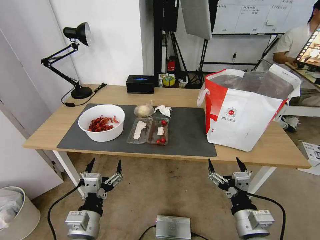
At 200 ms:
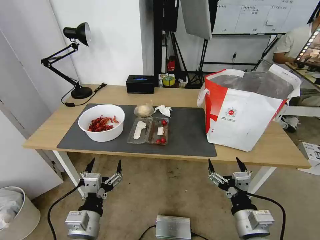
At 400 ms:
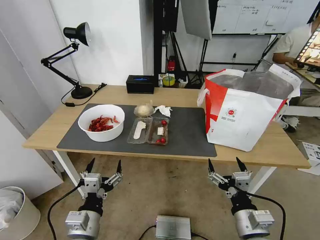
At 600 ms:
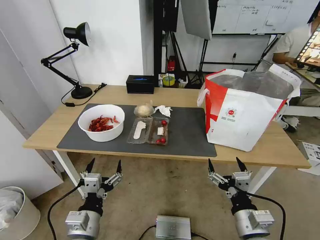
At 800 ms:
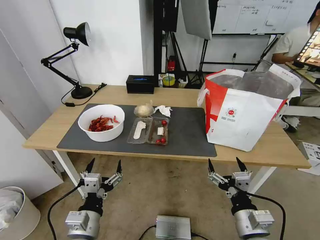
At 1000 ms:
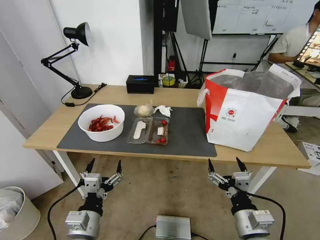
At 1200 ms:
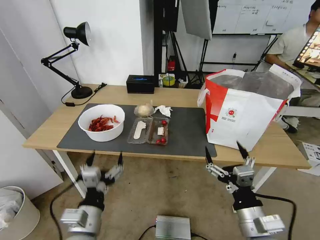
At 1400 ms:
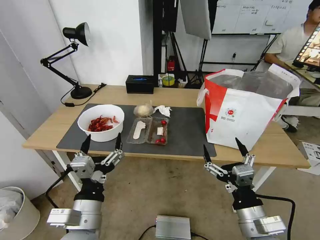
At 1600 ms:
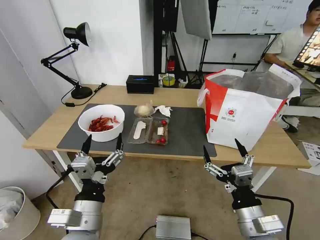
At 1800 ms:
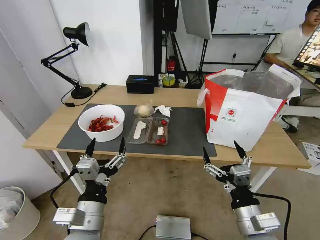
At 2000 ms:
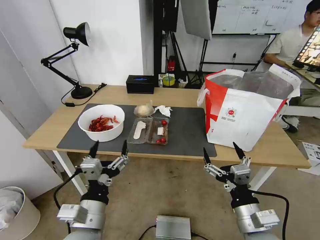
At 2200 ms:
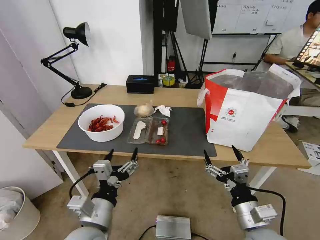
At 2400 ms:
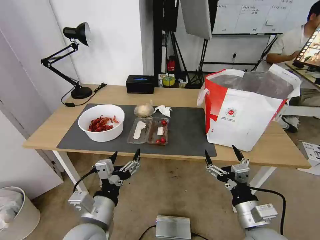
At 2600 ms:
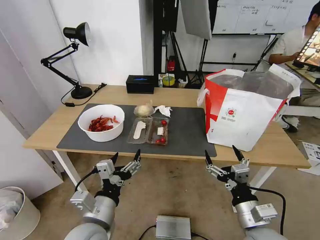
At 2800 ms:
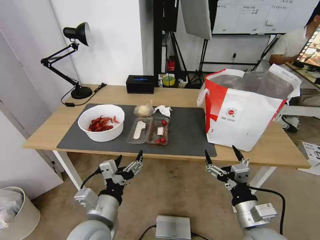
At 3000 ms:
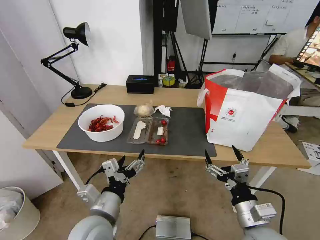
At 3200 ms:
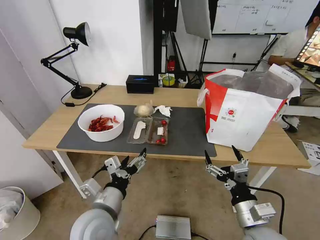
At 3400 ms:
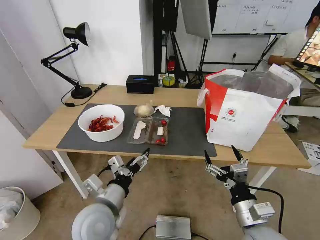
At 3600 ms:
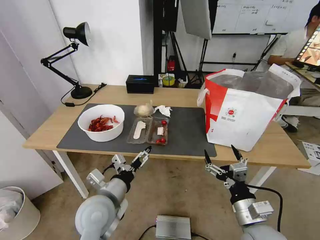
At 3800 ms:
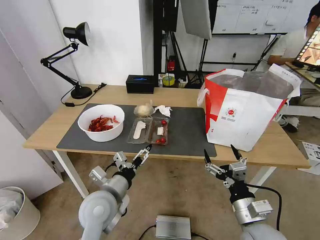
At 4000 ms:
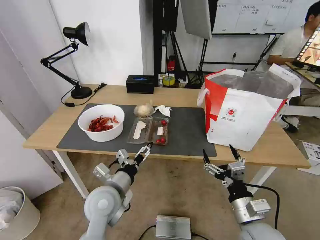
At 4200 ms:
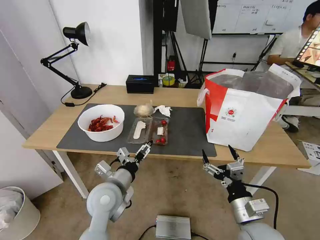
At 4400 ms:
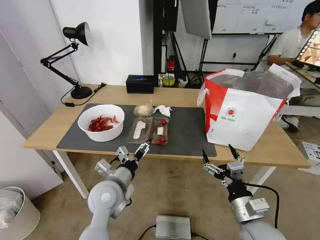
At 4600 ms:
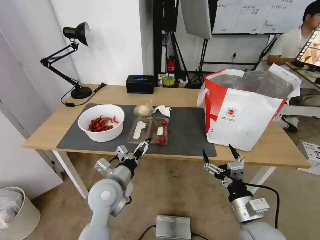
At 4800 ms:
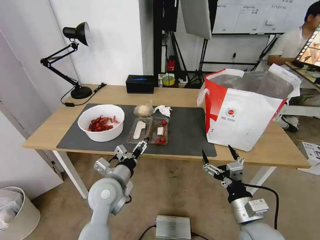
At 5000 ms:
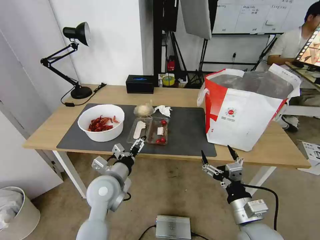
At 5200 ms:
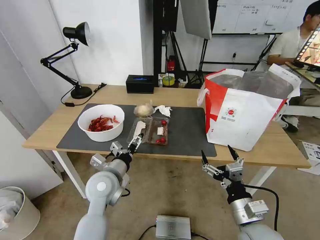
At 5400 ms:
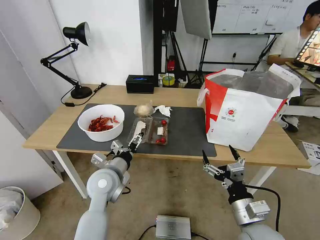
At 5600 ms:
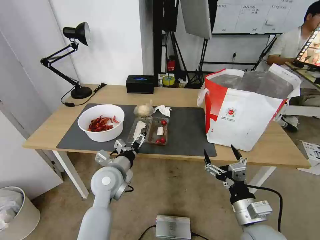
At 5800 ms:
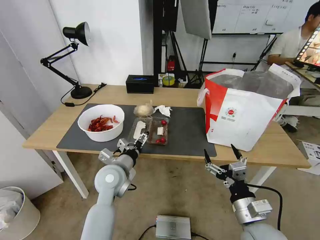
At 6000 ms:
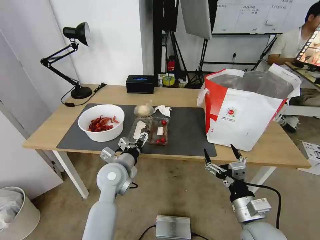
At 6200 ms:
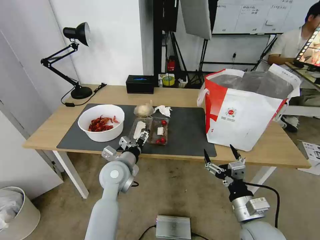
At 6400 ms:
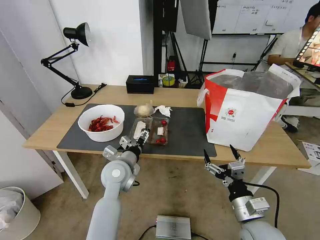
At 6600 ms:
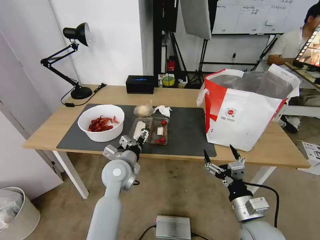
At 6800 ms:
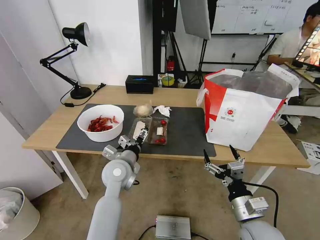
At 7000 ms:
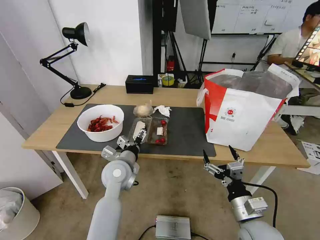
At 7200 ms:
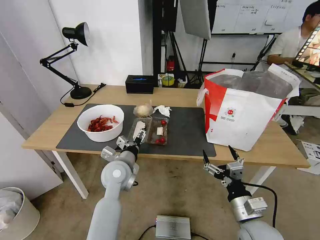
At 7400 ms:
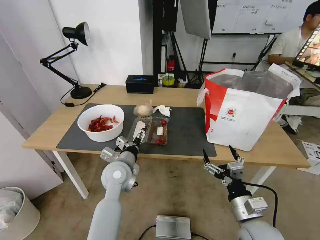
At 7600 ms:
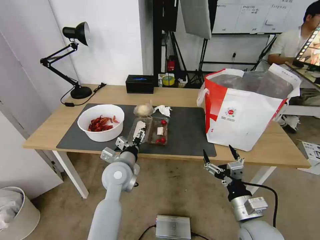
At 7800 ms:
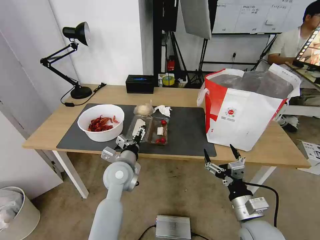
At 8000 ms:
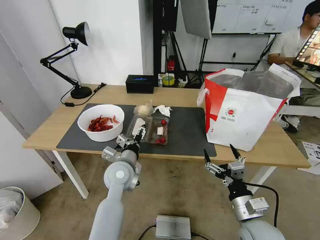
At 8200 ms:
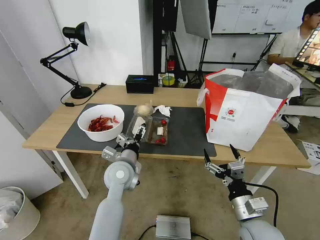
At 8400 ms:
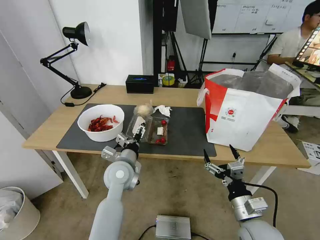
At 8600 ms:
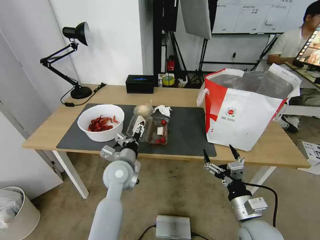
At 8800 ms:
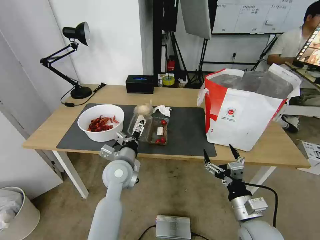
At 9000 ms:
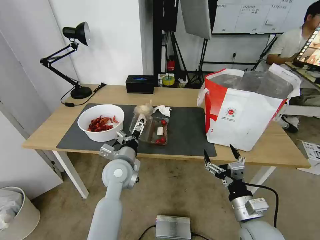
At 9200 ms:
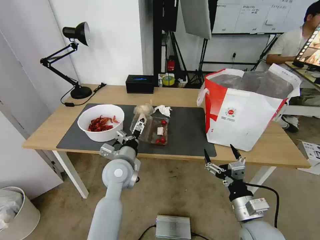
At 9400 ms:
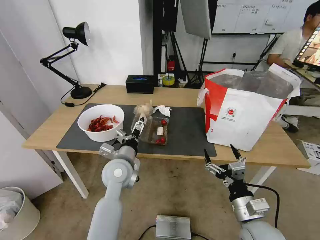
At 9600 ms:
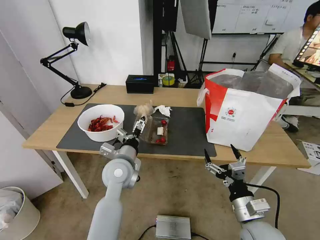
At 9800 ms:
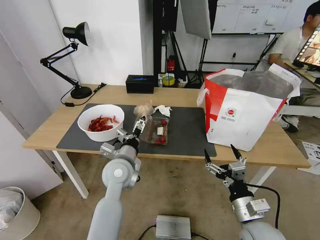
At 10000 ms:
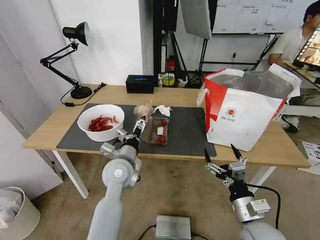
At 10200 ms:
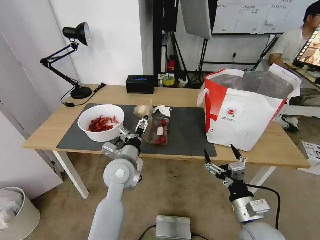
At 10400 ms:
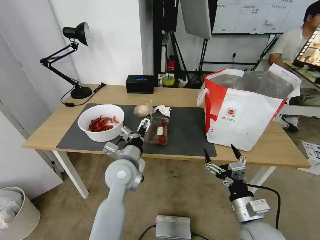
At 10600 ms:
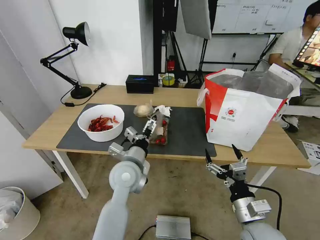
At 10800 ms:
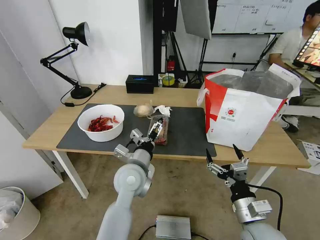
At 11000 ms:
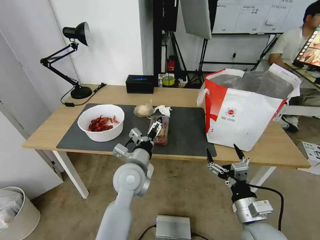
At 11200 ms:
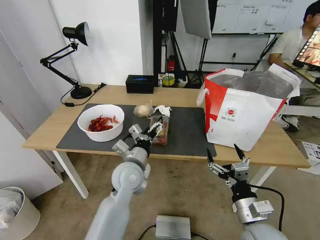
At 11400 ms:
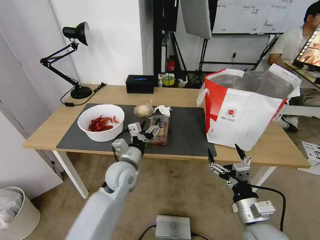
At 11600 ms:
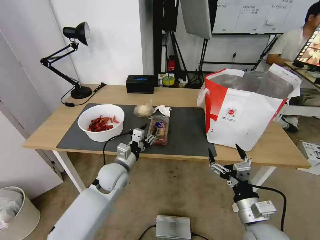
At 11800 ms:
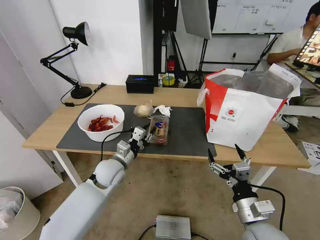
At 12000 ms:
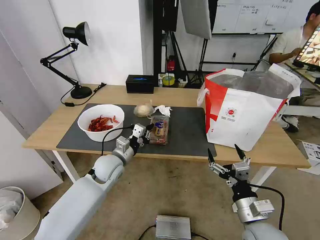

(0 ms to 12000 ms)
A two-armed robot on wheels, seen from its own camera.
Task of the whole recording: Pick up the trash from the table and place it into the takeout bag.
3000 ms - 4400 ms: The left gripper is displaced forward by some 10 cm.
4400 ms - 6000 ms: The left gripper goes some 5 cm forward.
6000 ms - 10400 ms: The grippers make only small movements.
10400 ms - 12000 ms: The left gripper moves to the left, forward and downward, roughly 10 cm, and closes its fingers.

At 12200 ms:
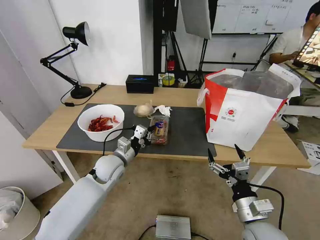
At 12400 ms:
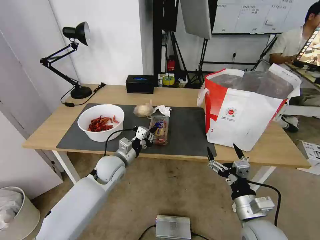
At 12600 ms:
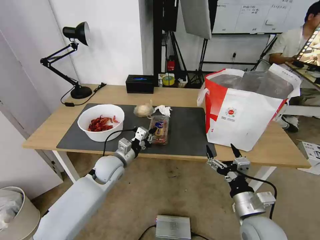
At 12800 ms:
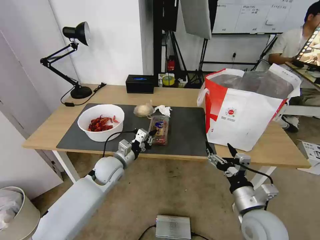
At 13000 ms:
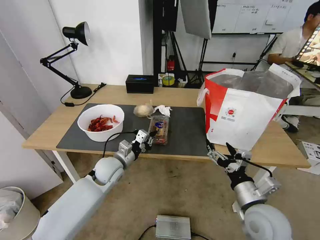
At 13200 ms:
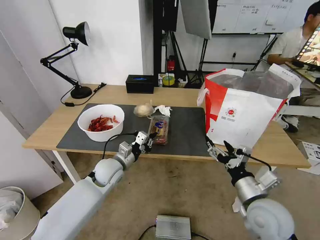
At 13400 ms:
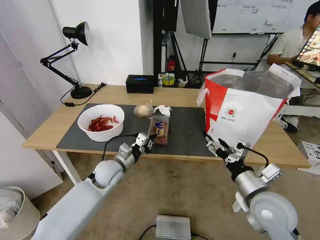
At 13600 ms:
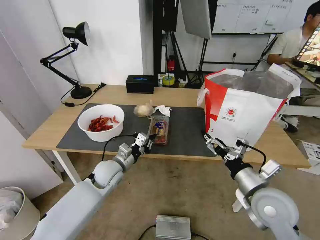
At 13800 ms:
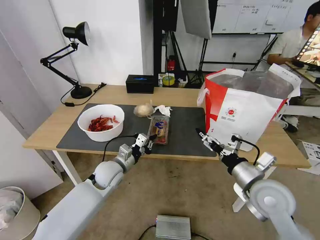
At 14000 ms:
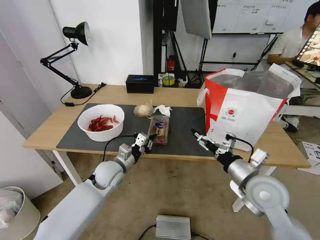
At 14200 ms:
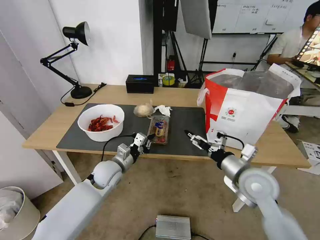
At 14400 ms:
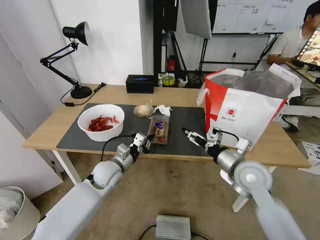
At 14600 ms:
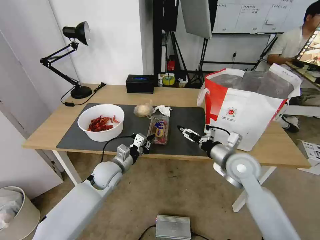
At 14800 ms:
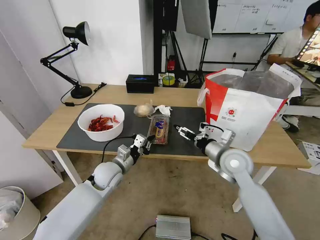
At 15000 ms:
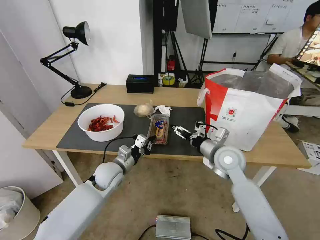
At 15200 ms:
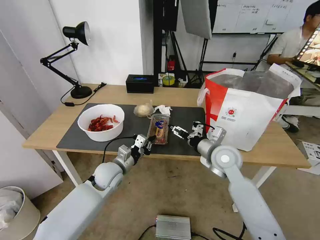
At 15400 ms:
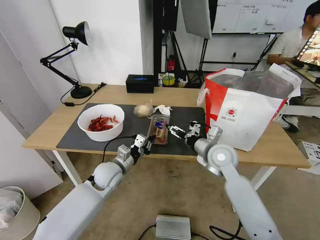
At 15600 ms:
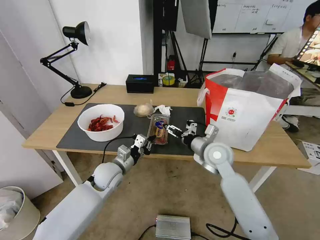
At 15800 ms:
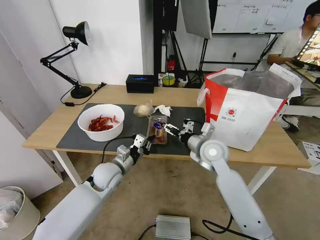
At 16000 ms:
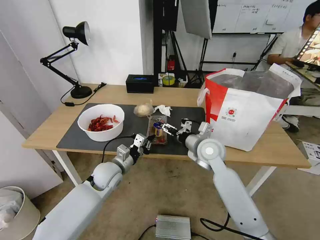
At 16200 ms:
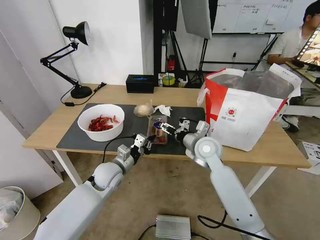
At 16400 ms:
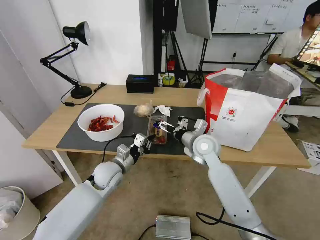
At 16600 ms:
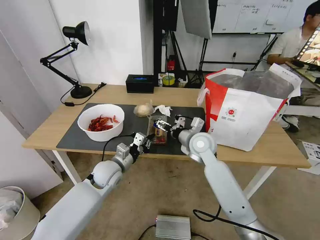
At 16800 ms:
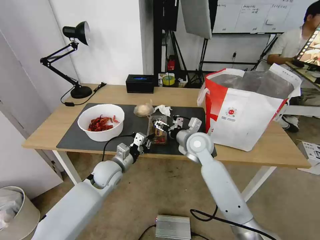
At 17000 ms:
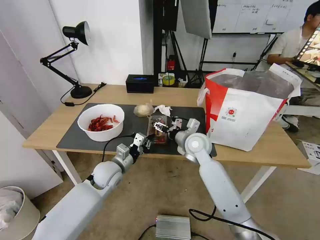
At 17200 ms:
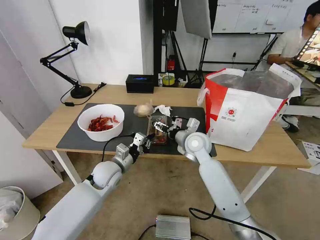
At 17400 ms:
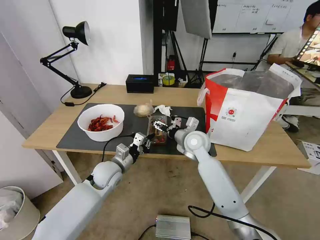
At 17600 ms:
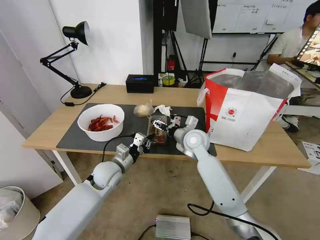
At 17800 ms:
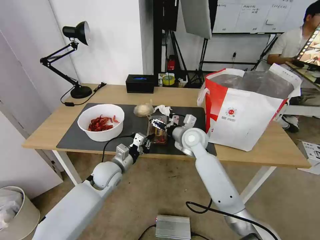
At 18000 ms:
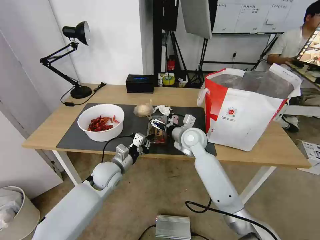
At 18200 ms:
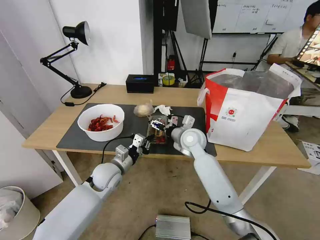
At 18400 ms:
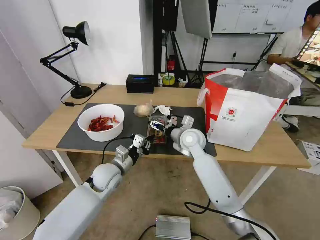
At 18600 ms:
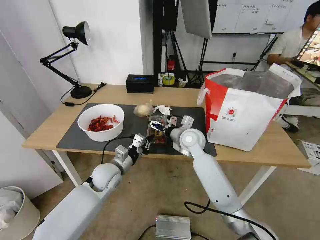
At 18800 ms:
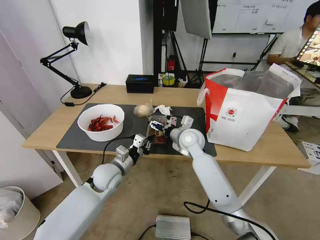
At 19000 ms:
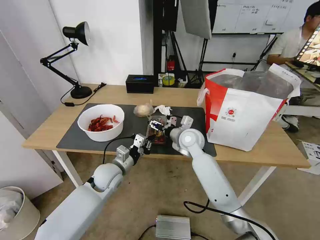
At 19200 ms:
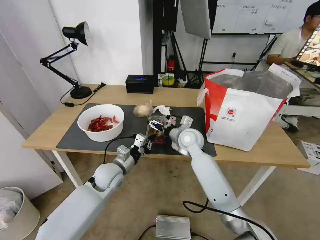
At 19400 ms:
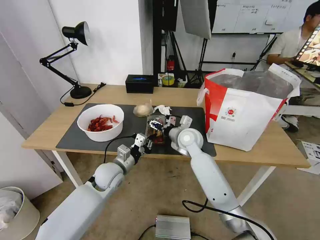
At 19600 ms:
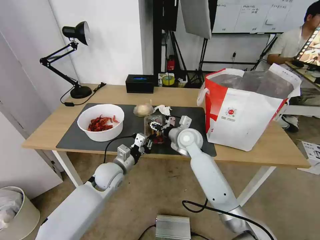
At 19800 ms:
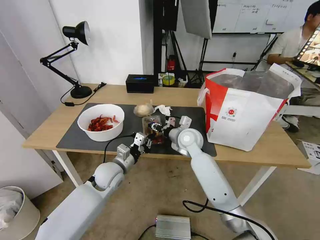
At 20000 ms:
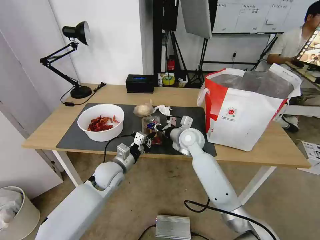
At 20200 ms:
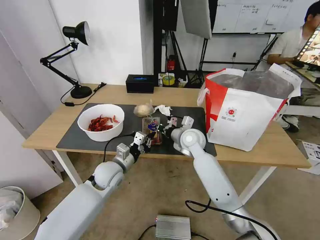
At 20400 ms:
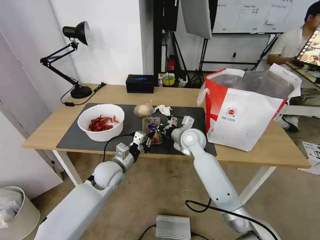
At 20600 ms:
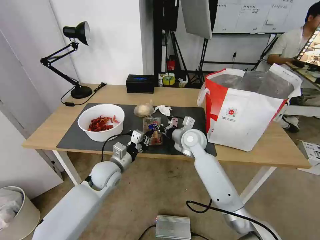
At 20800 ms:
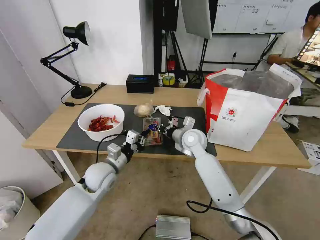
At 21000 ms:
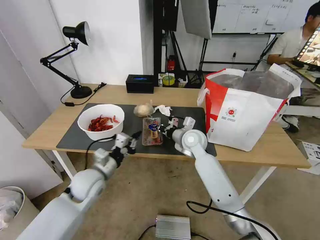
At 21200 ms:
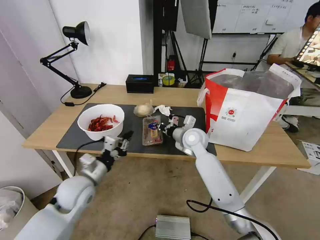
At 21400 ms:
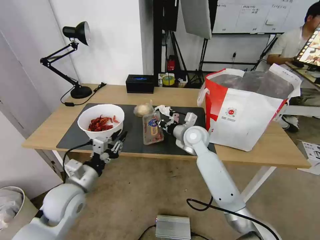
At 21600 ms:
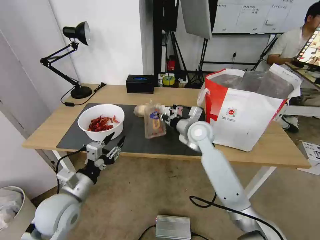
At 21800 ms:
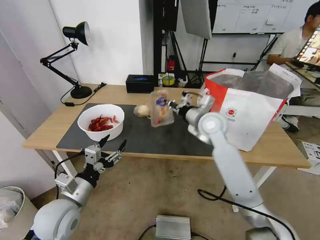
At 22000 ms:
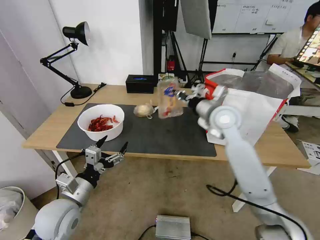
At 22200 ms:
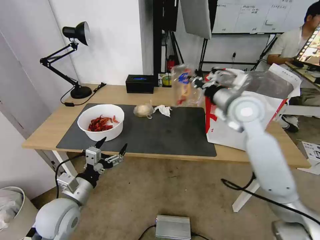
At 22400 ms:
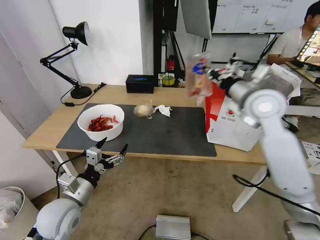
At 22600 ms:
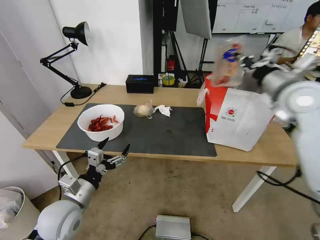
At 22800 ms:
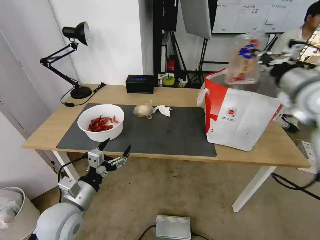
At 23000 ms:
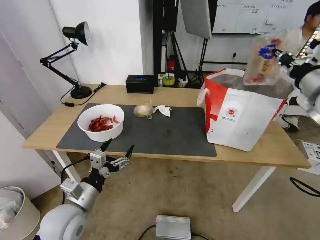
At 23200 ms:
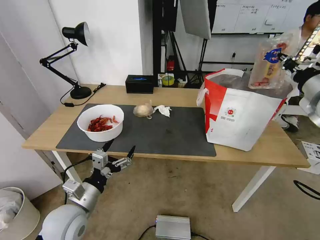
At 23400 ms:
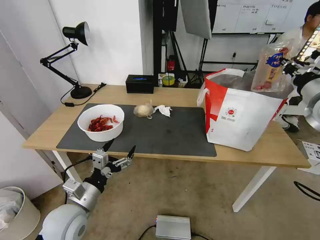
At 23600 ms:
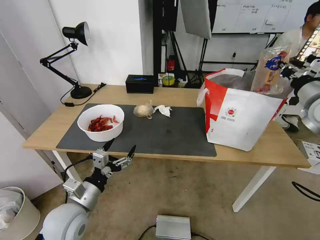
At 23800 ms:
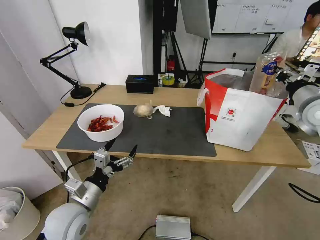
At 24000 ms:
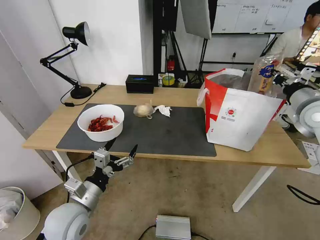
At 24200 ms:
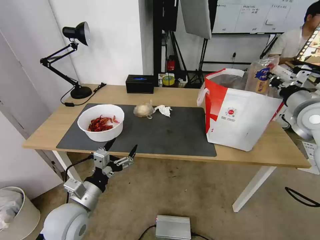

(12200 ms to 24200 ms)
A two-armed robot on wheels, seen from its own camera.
Task of the whole recording: Pick up the trash from the table and place it into the takeout bag.
12200 ms - 13800 ms: The right gripper moves upward and forward, roughly 10 cm.
13800 ms - 15200 ms: The right gripper heads forward and to the left, covering about 15 cm.
15200 ms - 16600 ms: The right gripper moves to the left and forward, some 10 cm.
16600 ms - 18200 ms: The grippers move only a little.
18200 ms - 19800 ms: The right gripper closes.
19800 ms - 21200 ms: The right gripper closes up. The left gripper goes roughly 10 cm to the left and backward.
21200 ms - 22600 ms: The right gripper travels upward and to the right by approximately 30 cm. The left gripper goes some 5 cm backward, and opens up.
22600 ms - 24200 ms: The right gripper shifts approximately 10 cm to the right.
